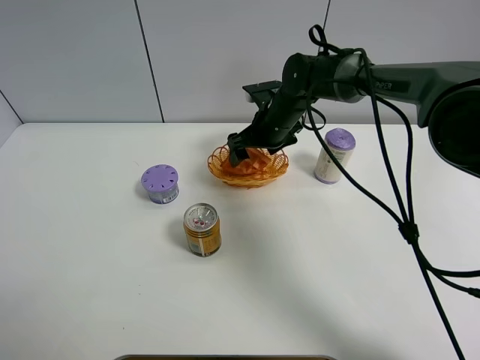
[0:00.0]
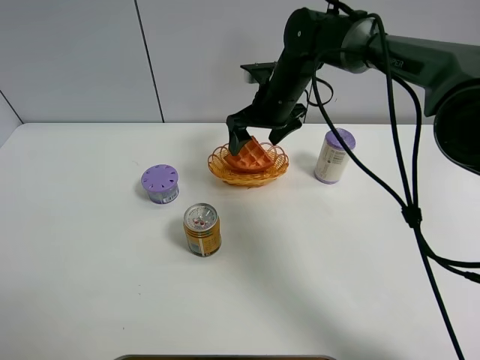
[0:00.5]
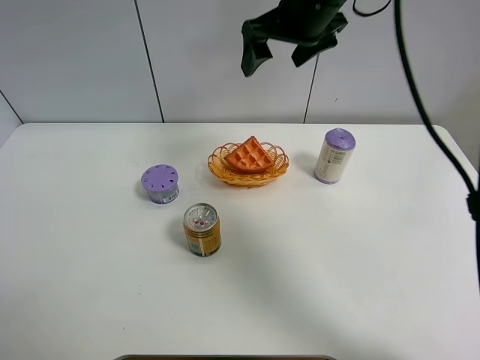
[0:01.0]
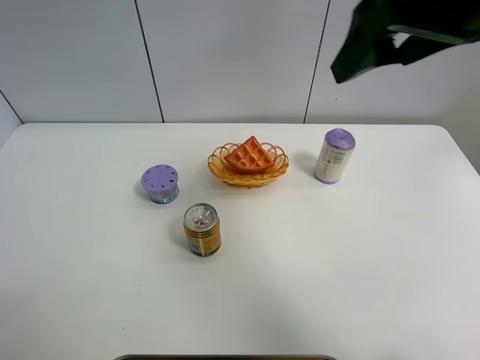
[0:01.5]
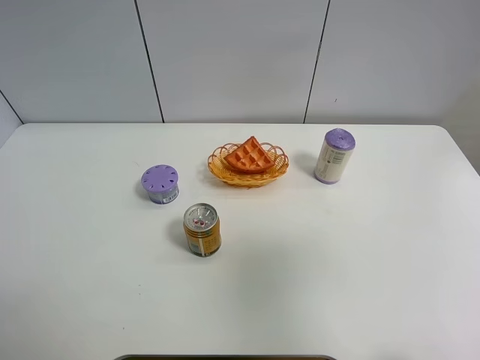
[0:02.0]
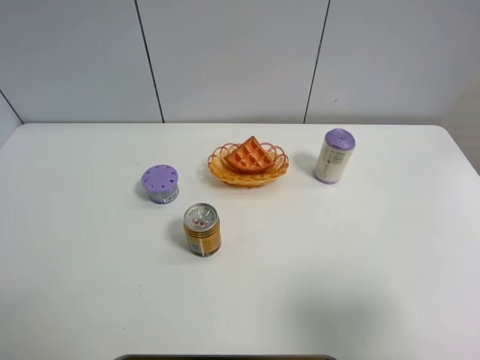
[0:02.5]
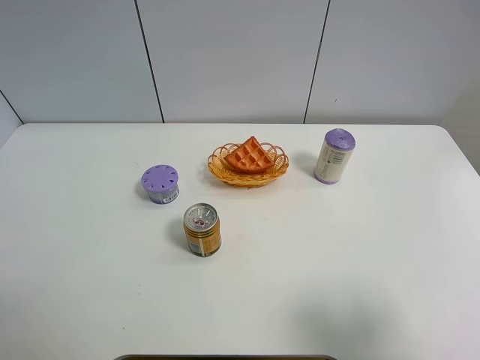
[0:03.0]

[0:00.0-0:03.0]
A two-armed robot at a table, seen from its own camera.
Task of the whole recording: Put the bakery in the basket.
0:00.0 to 0:01.5: The right gripper is displaced upward, backward and to the right by roughly 35 cm.
0:01.5 to 0:03.0: The right gripper moves backward, downward and to the right, some 30 cm.
